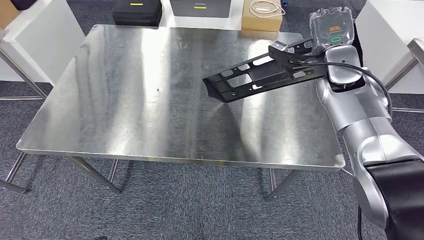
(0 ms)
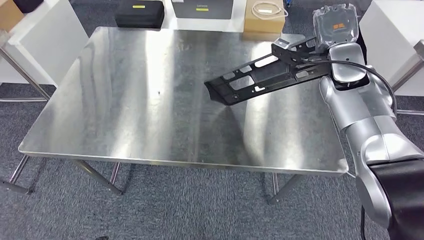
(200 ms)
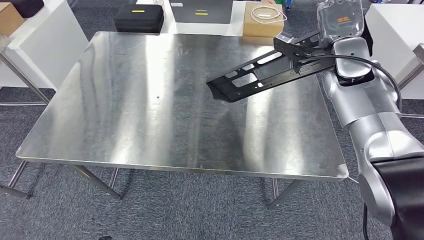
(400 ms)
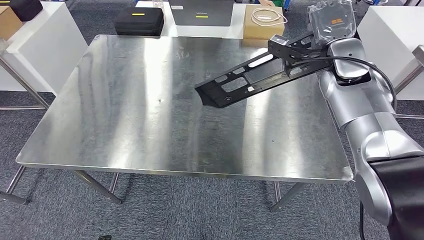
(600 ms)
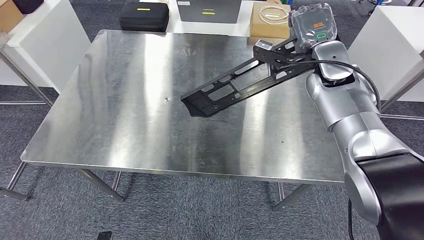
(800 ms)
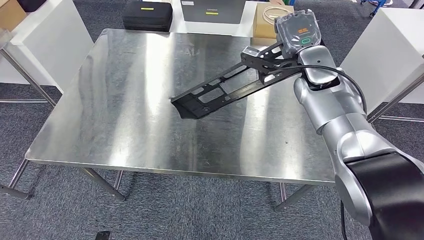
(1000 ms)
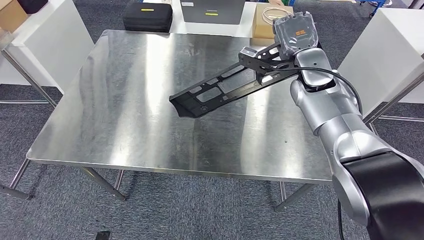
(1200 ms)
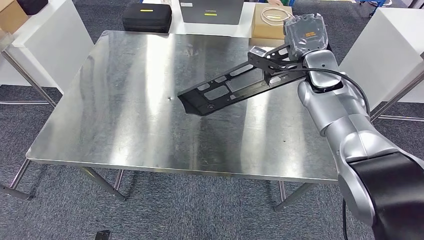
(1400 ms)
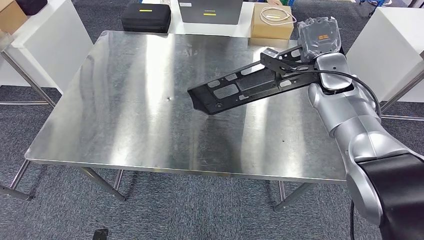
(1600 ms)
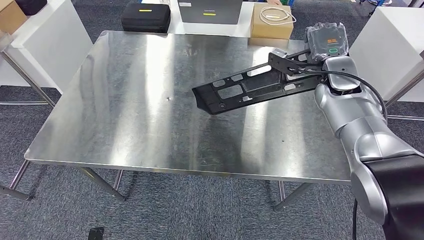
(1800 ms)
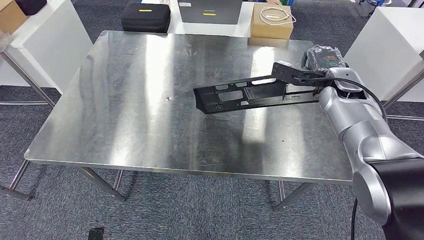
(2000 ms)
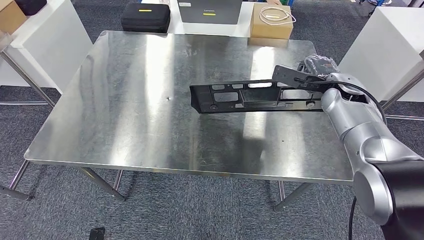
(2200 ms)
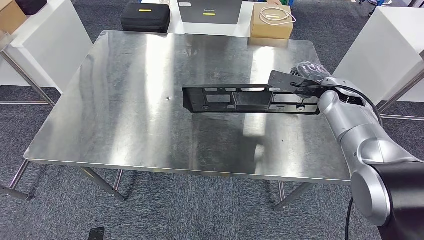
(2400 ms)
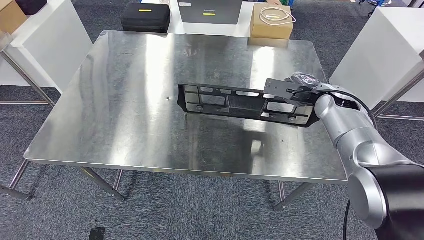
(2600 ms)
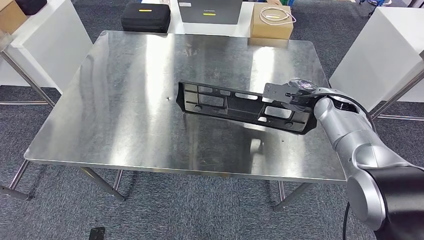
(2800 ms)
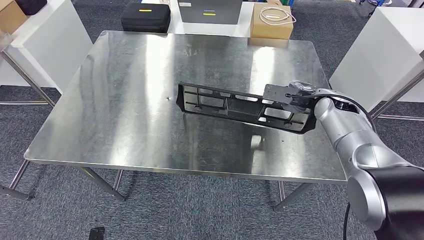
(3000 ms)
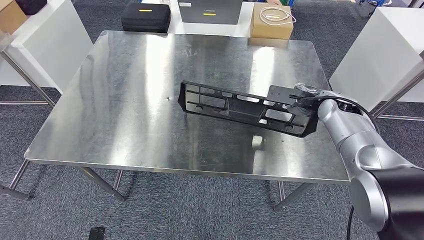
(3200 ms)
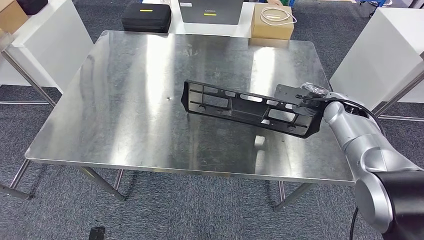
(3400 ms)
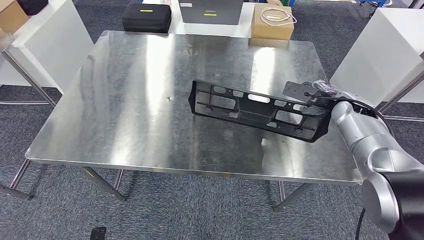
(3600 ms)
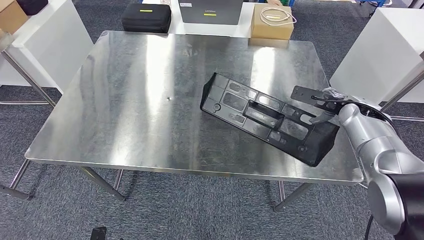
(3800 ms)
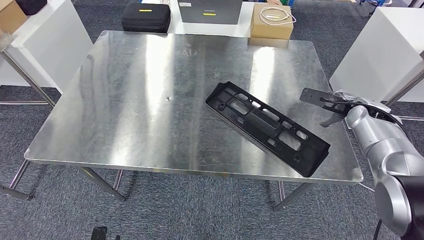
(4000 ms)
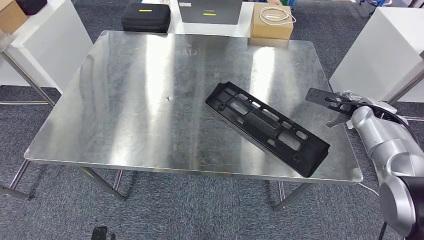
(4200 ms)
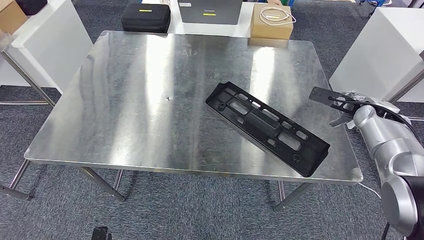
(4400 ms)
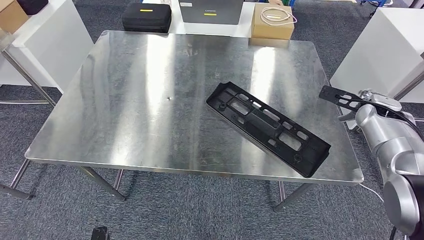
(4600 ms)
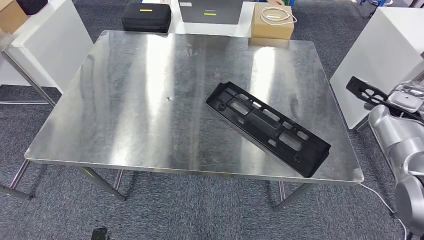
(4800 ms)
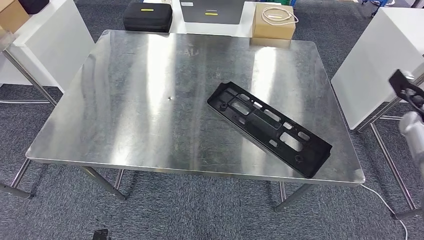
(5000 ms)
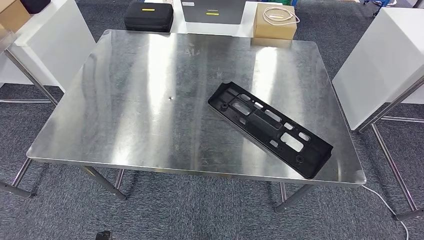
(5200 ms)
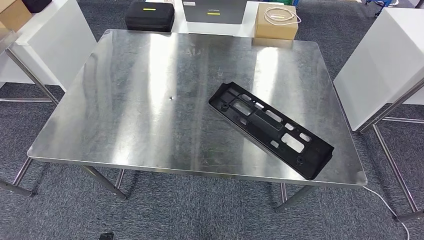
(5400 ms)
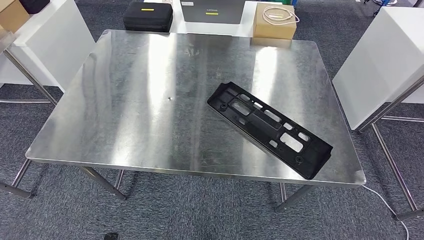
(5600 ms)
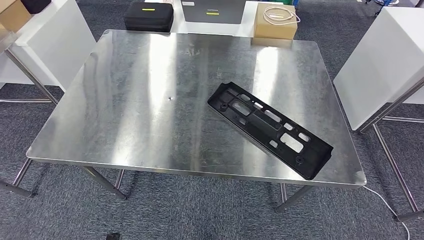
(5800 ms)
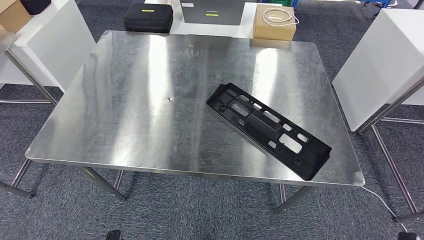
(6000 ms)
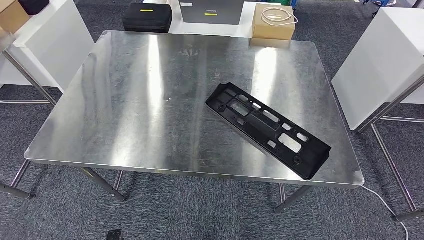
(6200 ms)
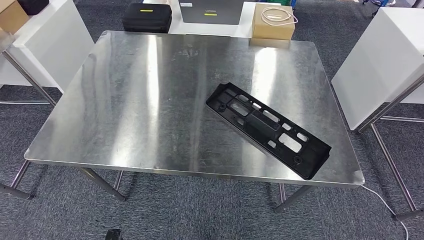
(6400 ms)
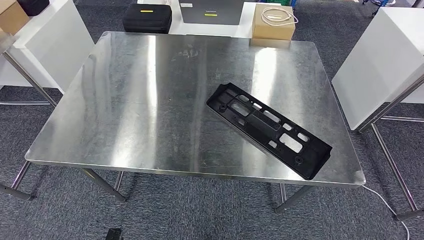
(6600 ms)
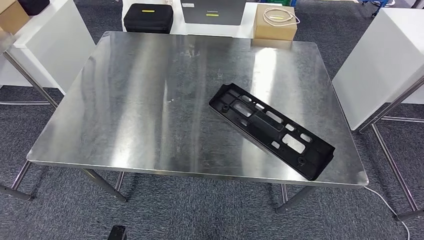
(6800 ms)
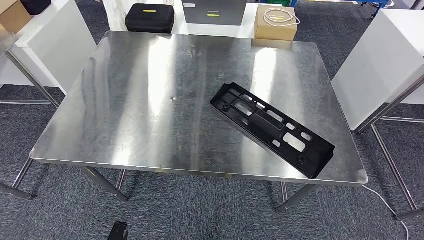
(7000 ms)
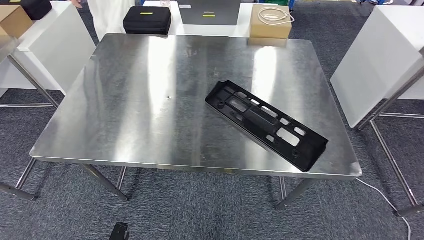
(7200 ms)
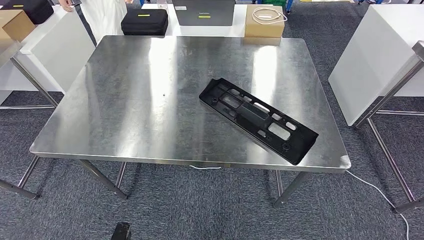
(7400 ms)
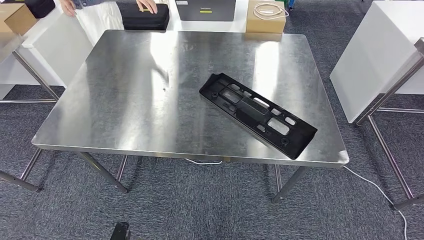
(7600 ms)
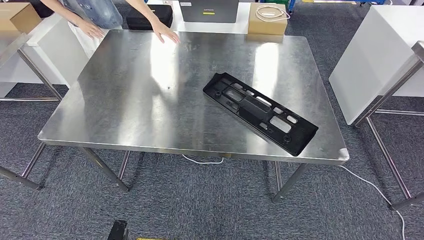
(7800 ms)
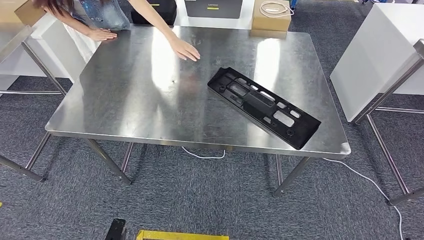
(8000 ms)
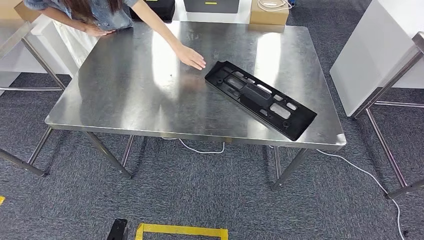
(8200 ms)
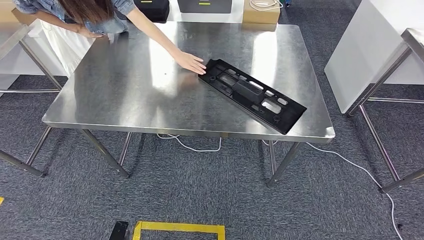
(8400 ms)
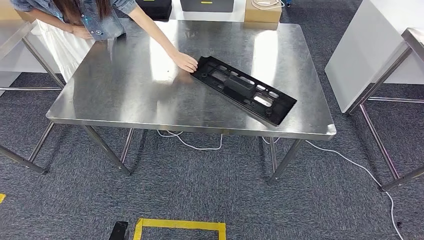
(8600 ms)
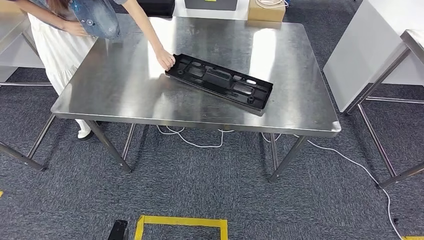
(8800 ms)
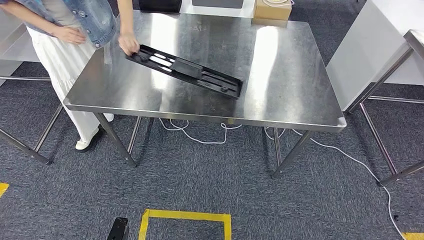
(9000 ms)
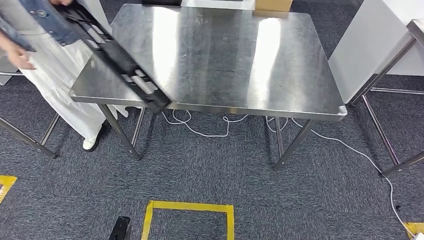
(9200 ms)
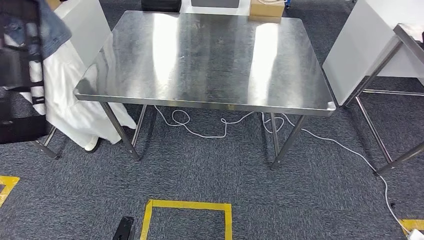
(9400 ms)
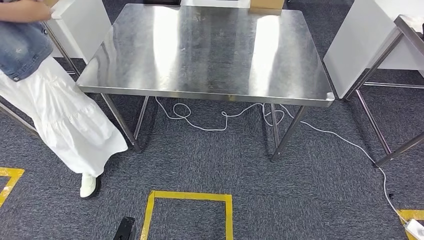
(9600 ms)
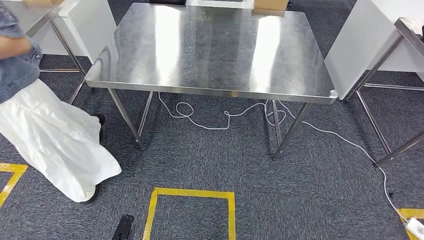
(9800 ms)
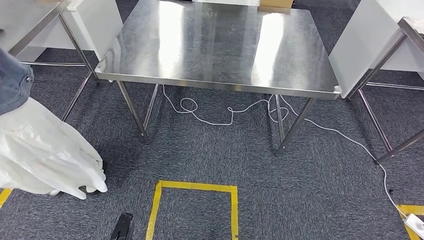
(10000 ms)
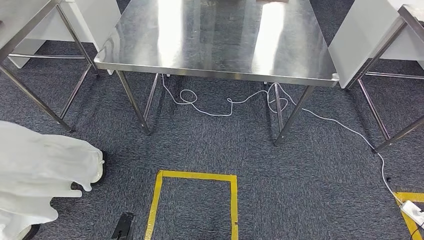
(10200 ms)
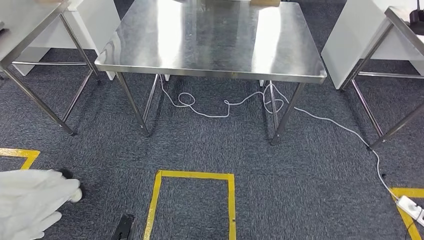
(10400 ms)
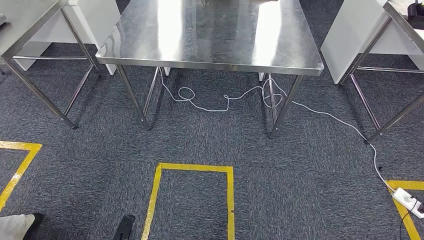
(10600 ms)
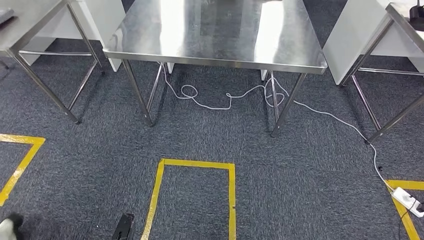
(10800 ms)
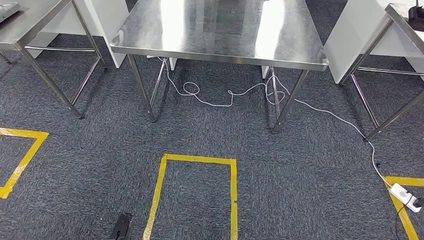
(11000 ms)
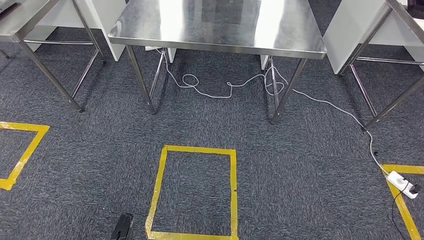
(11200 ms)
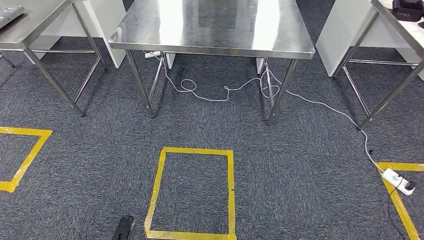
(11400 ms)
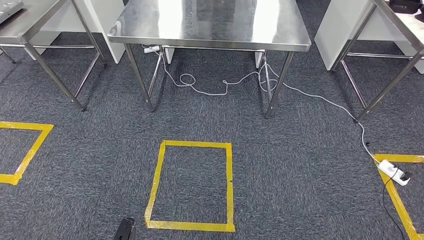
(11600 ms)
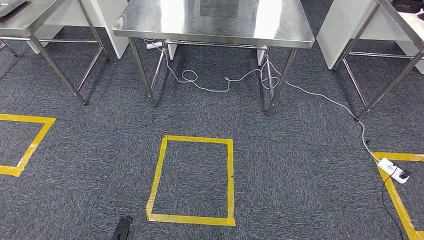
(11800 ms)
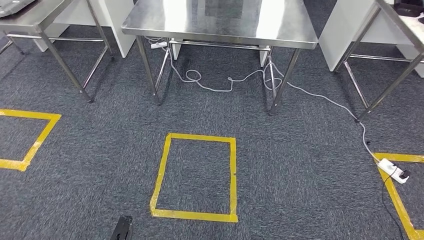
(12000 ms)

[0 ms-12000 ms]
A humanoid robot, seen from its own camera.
Step, 0 ms to 4200 ms: Insert the large material into the corresponding slot on the workbench.
1600 ms to 3000 ms: The right hand shifts about 5 cm downward.
3000 ms to 4400 ms: The right hand shifts about 10 cm to the right.
4400 ms to 6000 ms: The right hand travels backward and downward by approximately 50 cm.

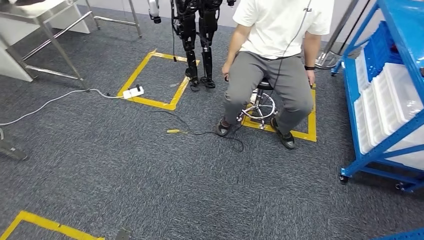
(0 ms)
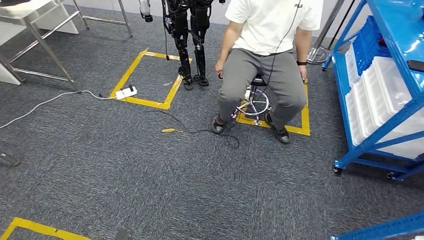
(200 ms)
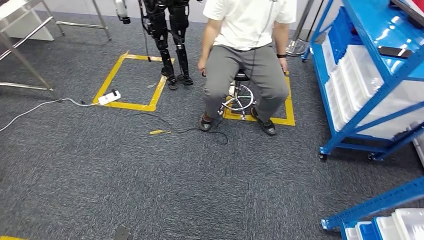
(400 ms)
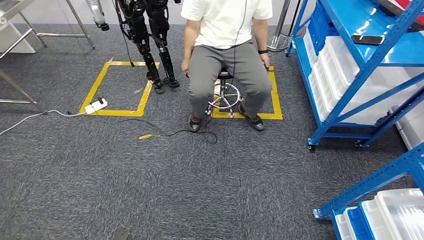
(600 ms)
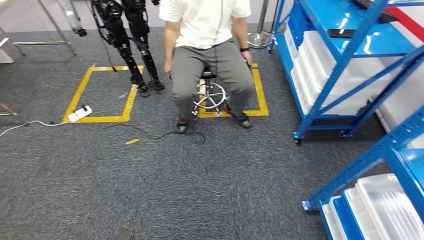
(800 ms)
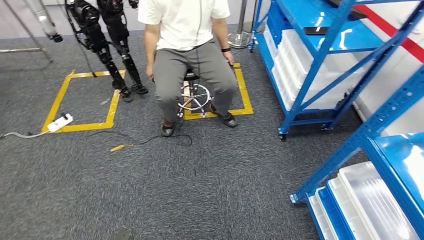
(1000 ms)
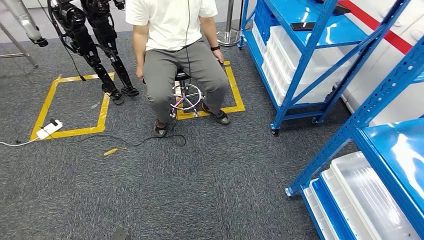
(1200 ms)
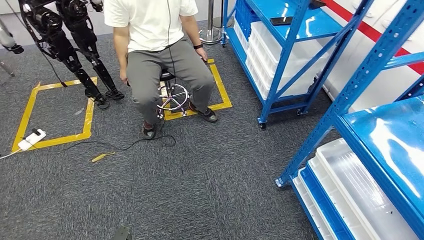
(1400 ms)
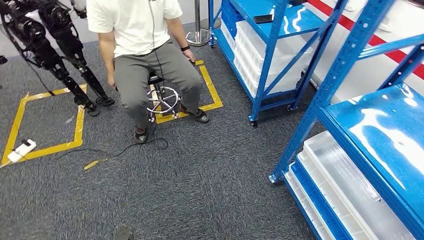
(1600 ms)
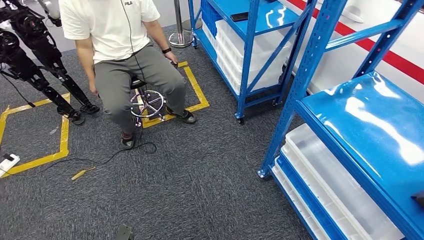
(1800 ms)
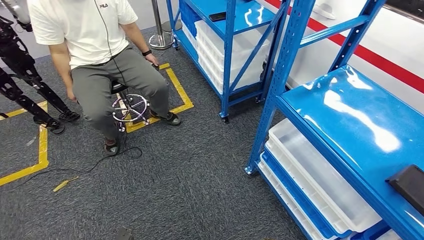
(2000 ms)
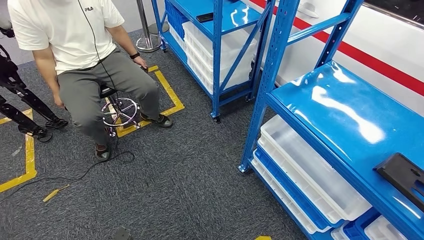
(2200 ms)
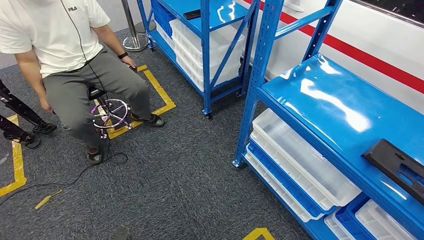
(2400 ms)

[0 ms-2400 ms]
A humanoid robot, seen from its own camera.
Step, 0 ms to 2400 ms: Move to the initial position of the shelf.
